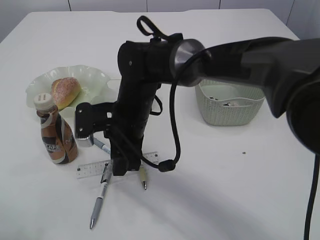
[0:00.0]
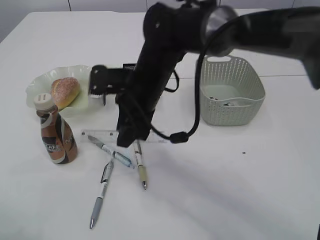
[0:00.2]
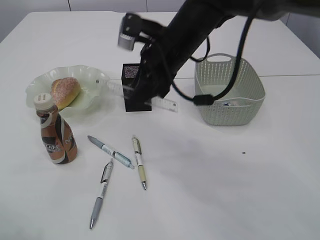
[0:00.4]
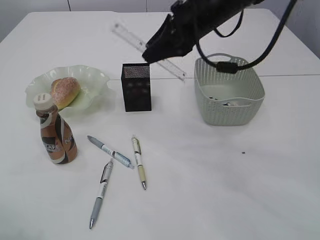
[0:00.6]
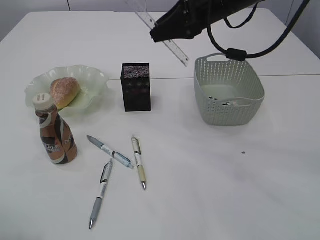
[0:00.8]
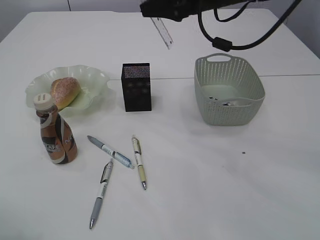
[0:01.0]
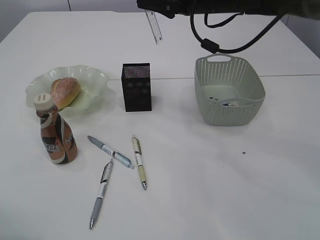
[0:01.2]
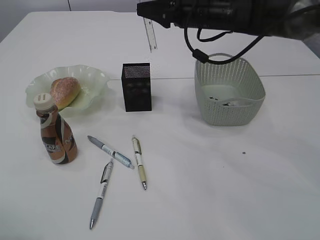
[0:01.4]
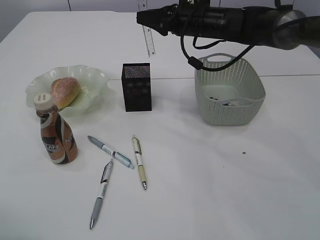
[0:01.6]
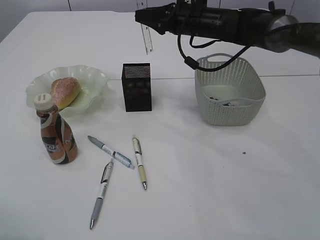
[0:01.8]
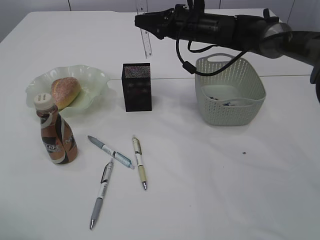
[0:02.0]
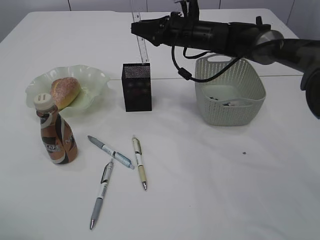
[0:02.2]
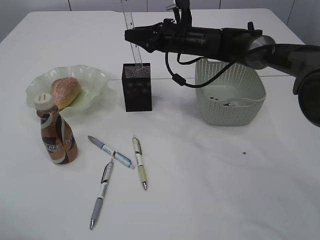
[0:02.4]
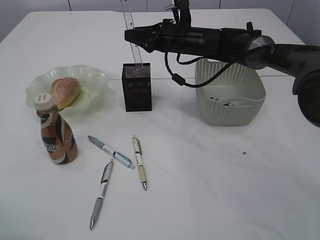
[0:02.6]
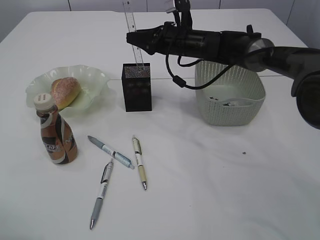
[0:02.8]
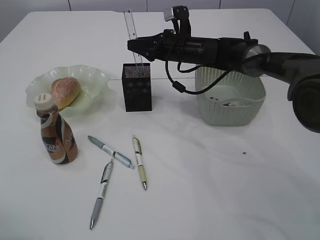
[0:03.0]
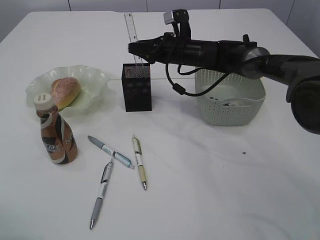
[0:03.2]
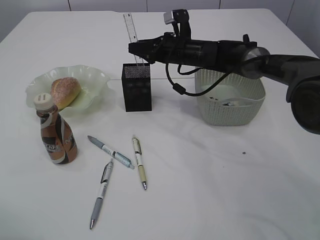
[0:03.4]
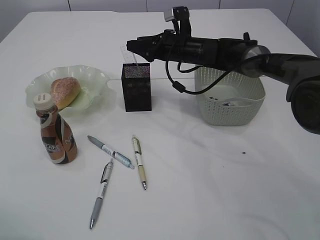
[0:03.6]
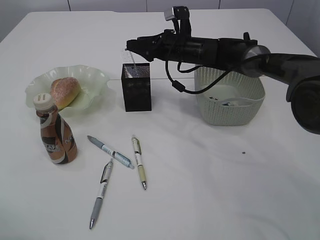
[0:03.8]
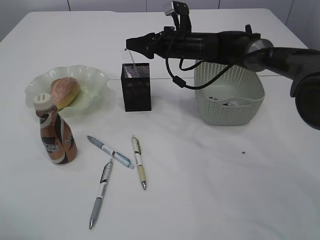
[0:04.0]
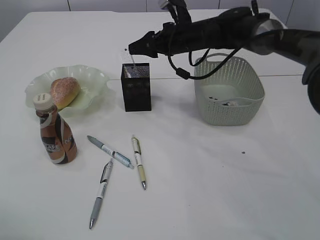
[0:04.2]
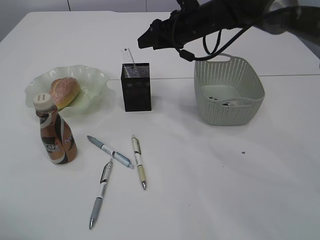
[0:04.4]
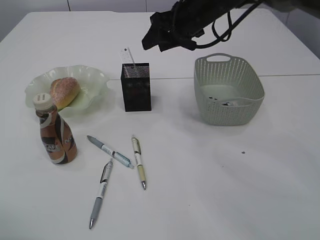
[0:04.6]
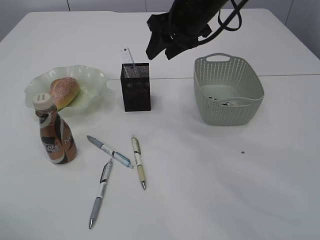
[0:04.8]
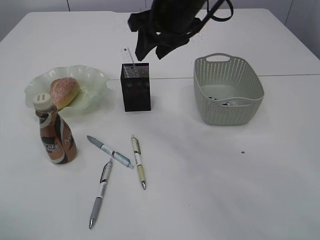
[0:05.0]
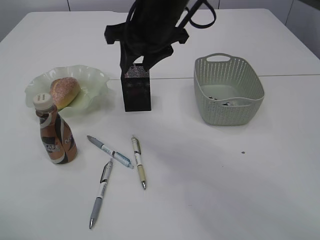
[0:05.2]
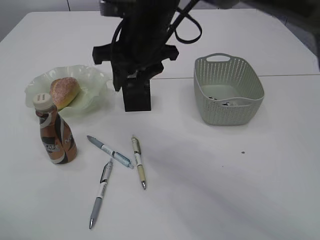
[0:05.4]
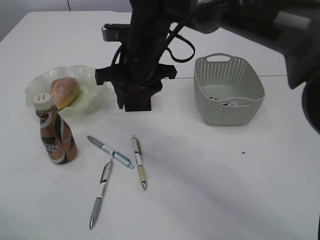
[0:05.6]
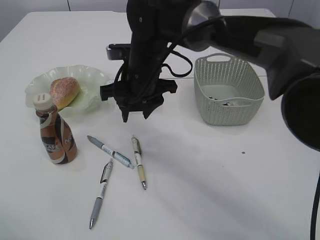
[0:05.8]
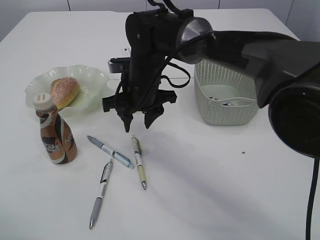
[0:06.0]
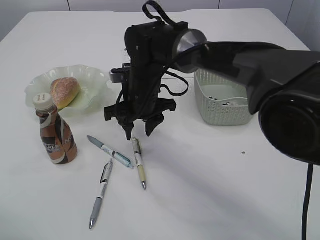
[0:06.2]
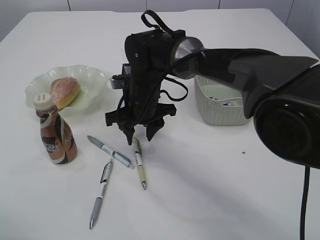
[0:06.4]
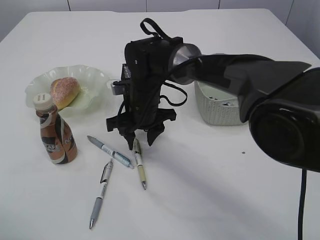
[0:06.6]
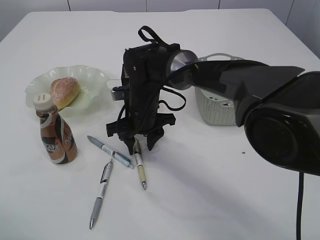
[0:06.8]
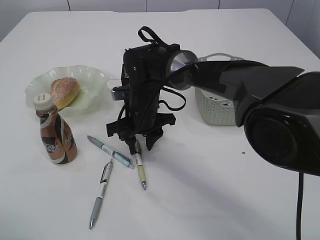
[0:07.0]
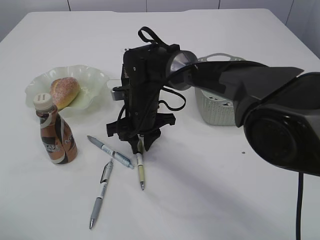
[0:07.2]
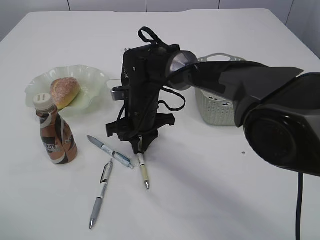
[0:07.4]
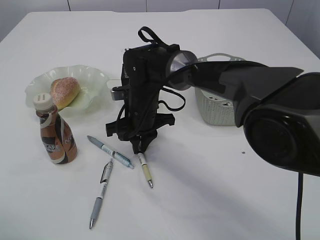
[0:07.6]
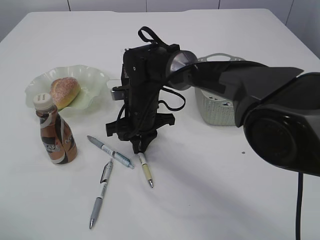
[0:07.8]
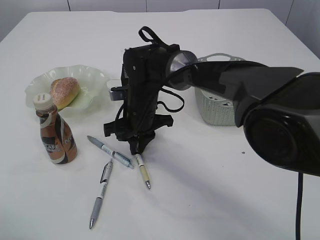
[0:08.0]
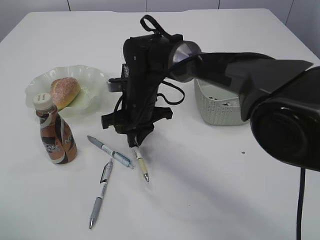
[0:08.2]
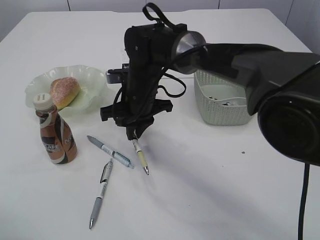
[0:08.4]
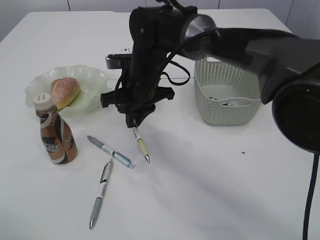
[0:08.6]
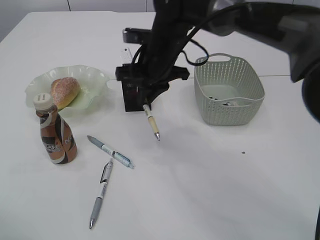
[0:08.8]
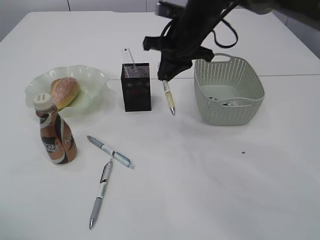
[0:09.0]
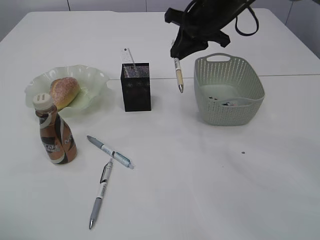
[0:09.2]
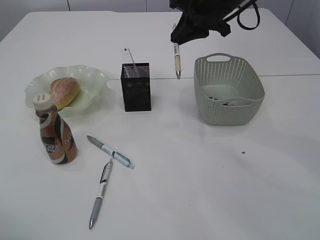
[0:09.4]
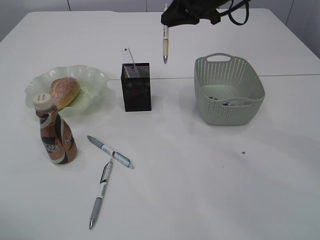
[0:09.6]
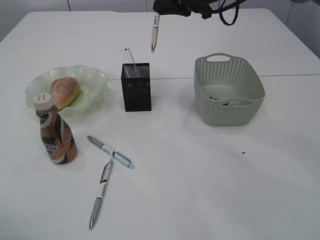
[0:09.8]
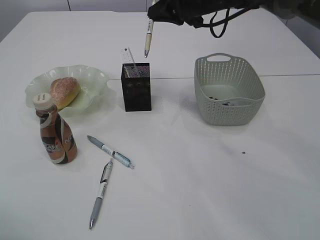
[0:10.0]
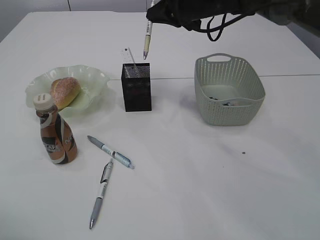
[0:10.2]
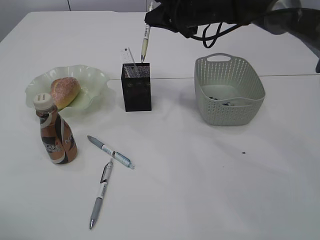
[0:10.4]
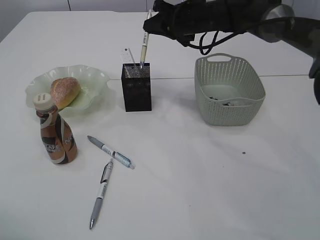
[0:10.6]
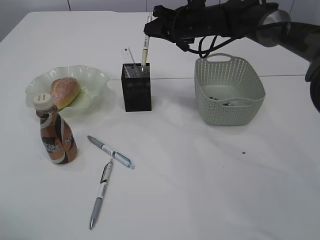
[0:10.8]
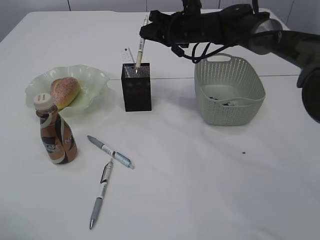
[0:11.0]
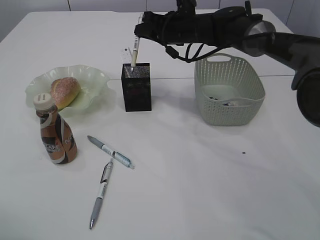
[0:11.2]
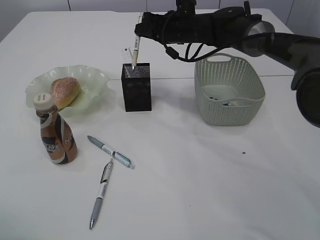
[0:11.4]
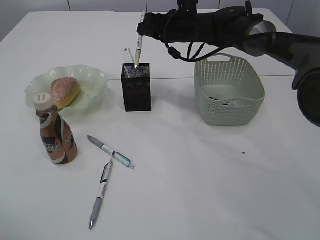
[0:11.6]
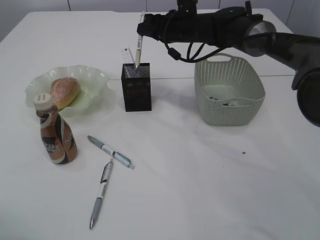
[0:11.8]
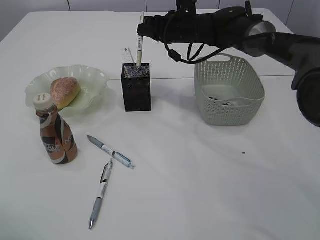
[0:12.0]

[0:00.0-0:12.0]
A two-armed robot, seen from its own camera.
Step, 0:00.4 to 0:04.2: Place the ruler into the pen holder.
Step, 0:04.4 to 0:08.2: Pick up the pen with right arm.
0:00.0 to 0:01.6: The right gripper heads forward, to the right and upward, covering roughly 25 cm.
0:01.6 to 0:03.0: The right gripper moves downward, some 5 cm.
0:03.0 to 0:04.4: The right gripper travels upward by some 5 cm.
0:04.4 to 0:06.0: The right gripper is displaced to the left, backward and downward by about 15 cm.
0:06.0 to 0:07.6: The right gripper travels downward by some 5 cm, and closes its fingers.
0:07.6 to 0:09.0: The right gripper heads upward and to the right, covering approximately 15 cm.
0:09.0 to 0:10.4: The right gripper travels forward by about 10 cm.
0:10.4 to 0:12.0: The right gripper moves approximately 5 cm.

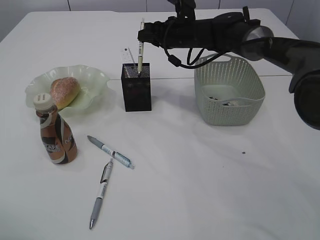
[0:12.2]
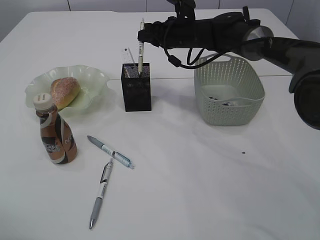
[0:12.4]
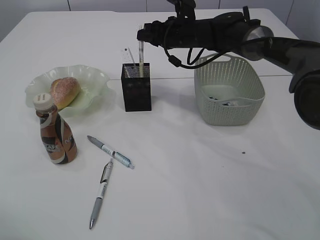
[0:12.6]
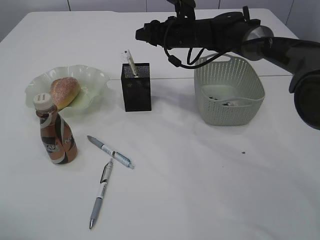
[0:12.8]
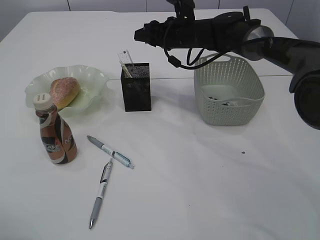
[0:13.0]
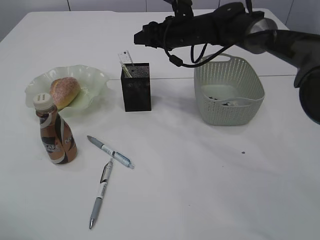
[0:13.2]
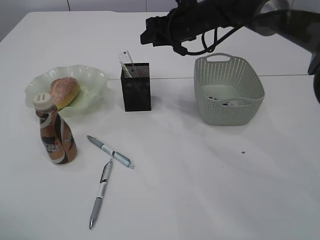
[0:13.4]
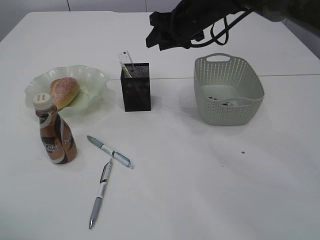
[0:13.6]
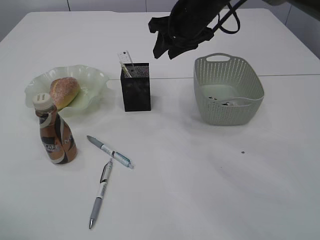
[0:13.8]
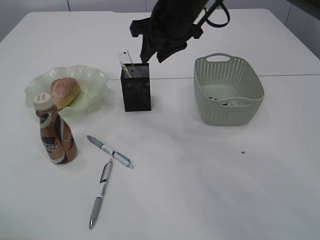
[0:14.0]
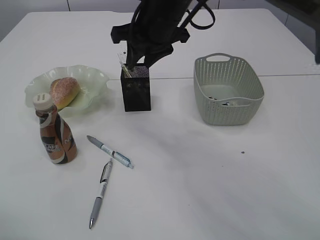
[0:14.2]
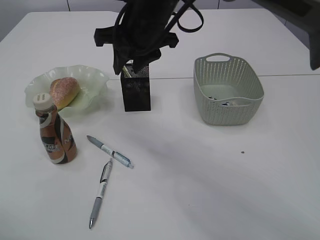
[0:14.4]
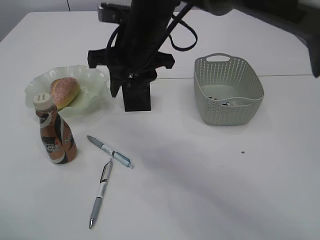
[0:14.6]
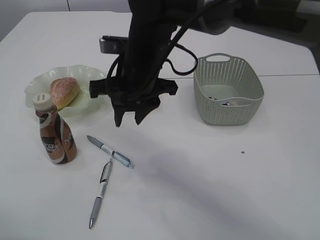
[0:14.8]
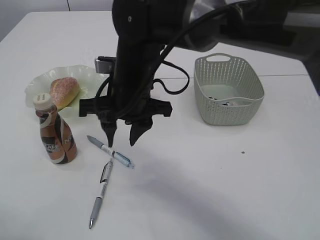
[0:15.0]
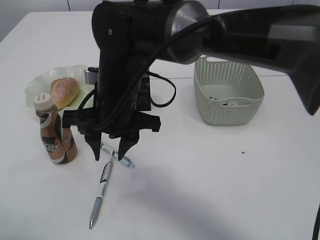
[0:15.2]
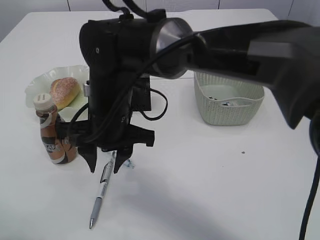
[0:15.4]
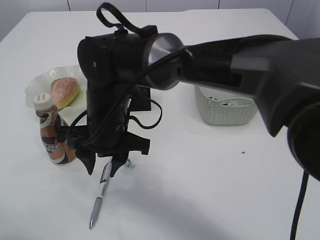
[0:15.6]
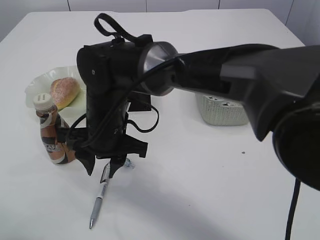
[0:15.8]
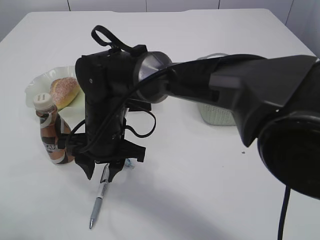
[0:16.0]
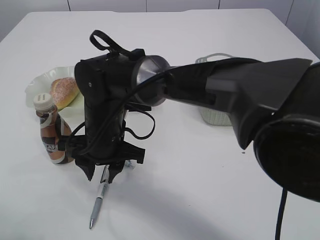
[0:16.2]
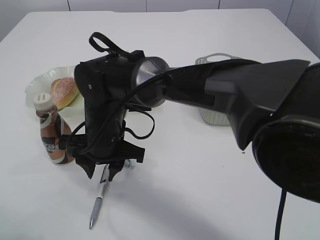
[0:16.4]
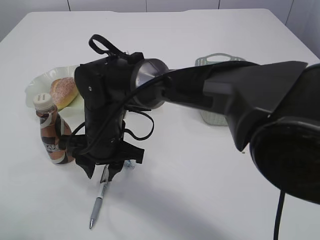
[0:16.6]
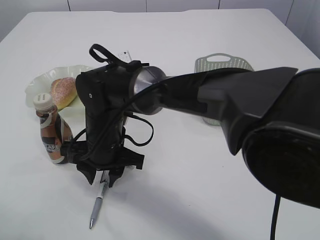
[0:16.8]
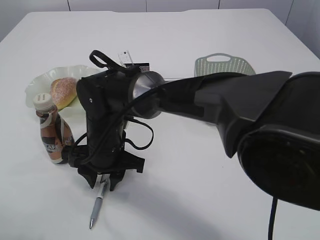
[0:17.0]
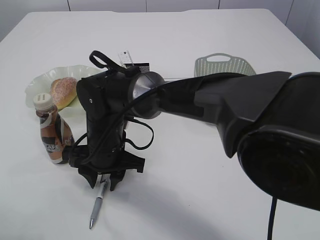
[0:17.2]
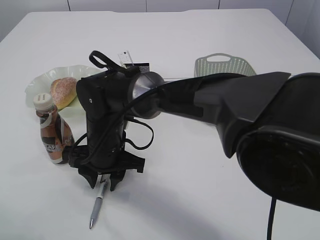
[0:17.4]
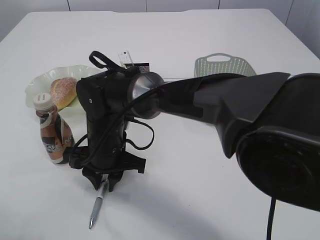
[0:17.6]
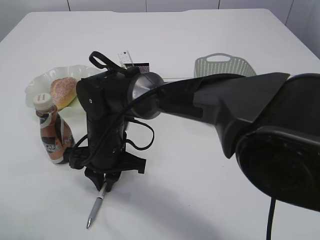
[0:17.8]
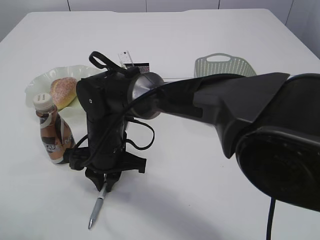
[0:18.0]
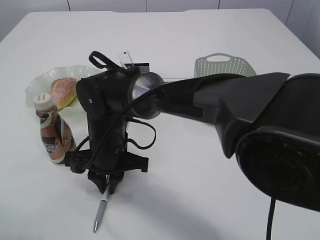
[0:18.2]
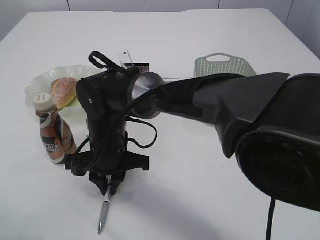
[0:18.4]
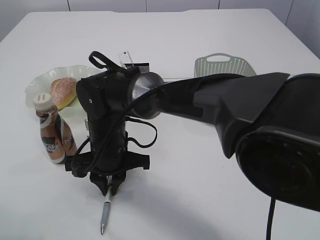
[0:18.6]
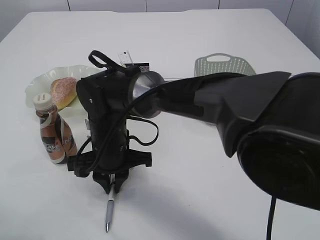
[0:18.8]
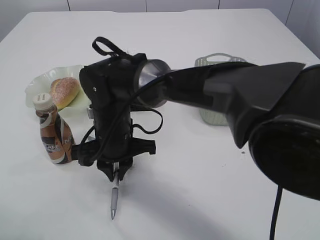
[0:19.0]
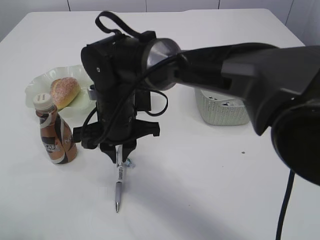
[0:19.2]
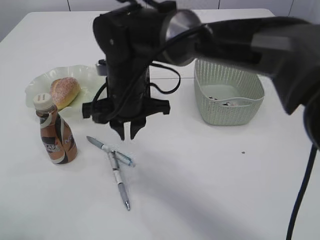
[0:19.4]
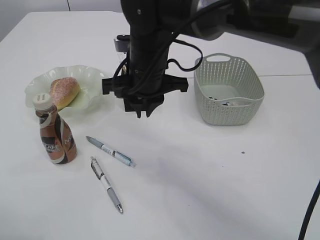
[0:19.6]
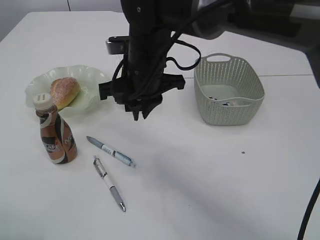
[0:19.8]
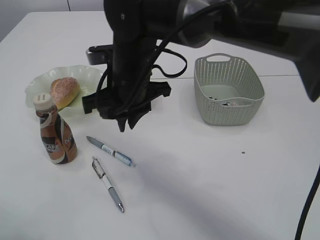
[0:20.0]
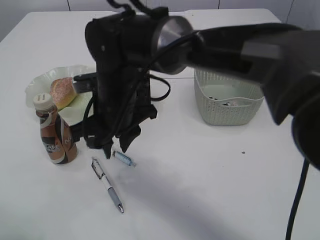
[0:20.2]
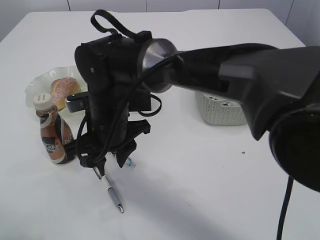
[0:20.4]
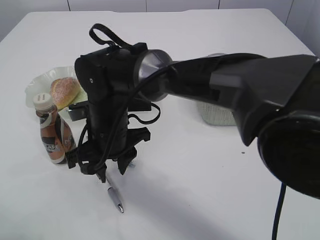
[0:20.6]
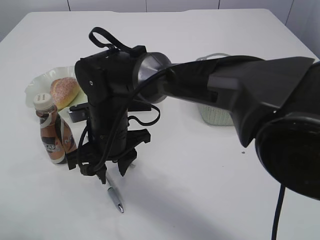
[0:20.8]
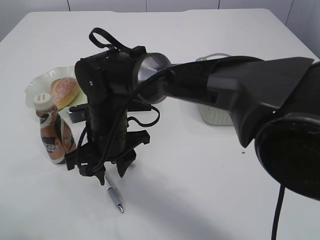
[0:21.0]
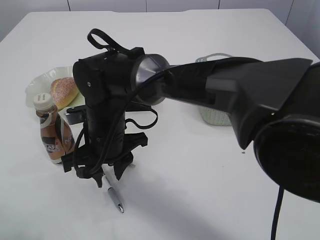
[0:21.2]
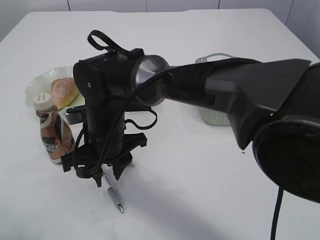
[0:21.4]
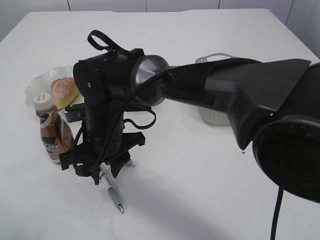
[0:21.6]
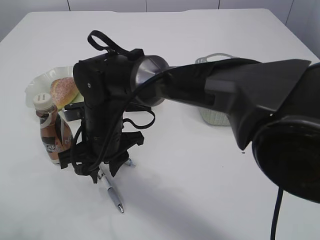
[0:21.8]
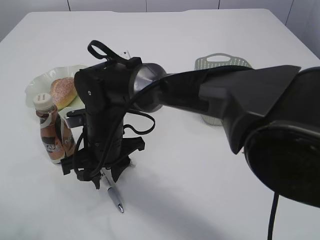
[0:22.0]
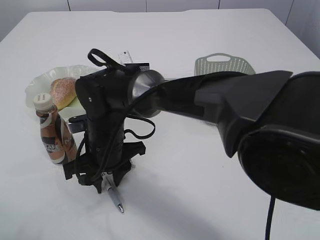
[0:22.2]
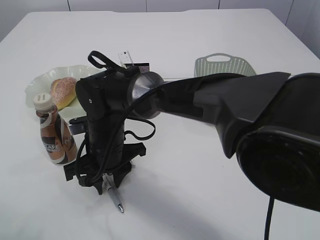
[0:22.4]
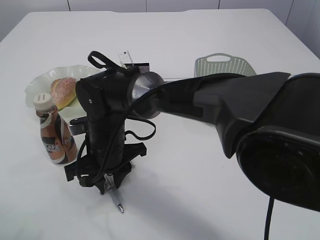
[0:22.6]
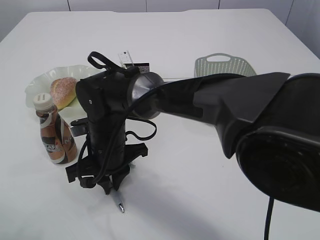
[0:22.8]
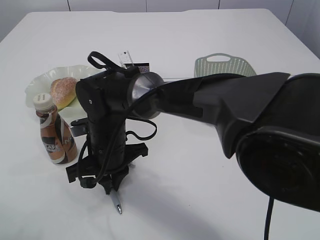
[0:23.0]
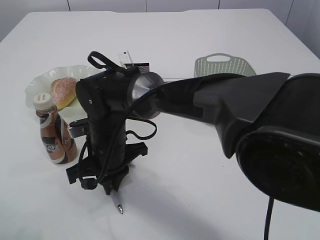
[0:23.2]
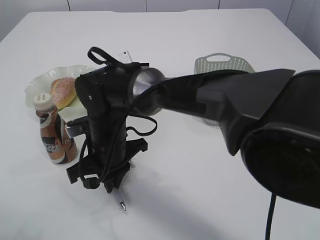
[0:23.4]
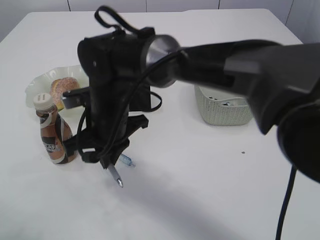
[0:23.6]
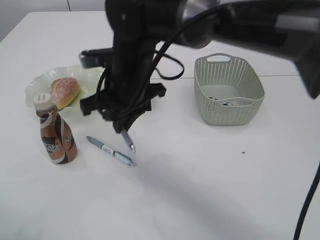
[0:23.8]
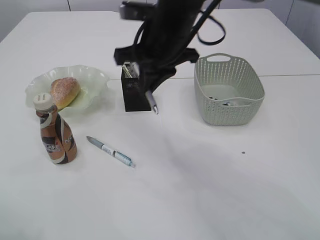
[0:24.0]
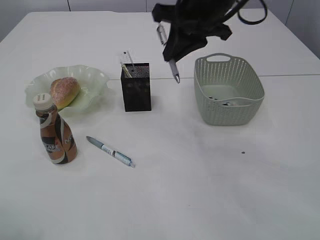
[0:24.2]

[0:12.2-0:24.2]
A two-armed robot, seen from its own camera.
Step, 0:13.4 to 0:23.8: Pick up the pen with right arm.
0:12.2 to 0:13.8: The right gripper travels backward and upward by roughly 10 cm, and opens up.
0:13.8 to 0:15.2: The right gripper shifts some 20 cm backward and to the left.
0:15.2 to 0:16.6: The right gripper shifts roughly 5 cm downward.
0:16.6 to 0:18.2: The right gripper closes its fingers.
0:18.2 to 0:19.8: The right gripper moves upward and to the right, roughly 15 cm.
0:19.8 to 0:21.2: The right gripper is displaced downward and to the left by some 10 cm, and opens its fingers.
0:21.2 to 0:22.6: The grippers move only a little.
0:22.6 to 0:24.2: The right gripper heads upward and to the right, covering roughly 25 cm, and closes its fingers.
